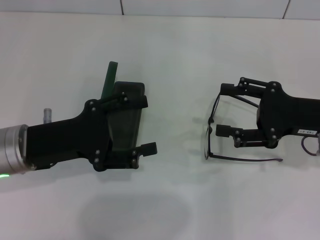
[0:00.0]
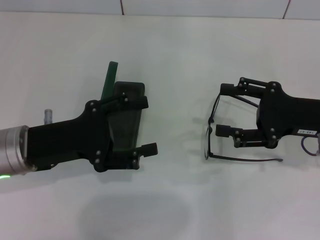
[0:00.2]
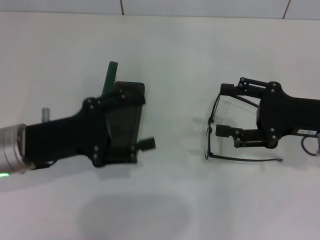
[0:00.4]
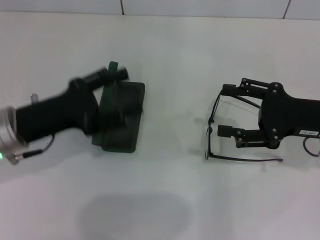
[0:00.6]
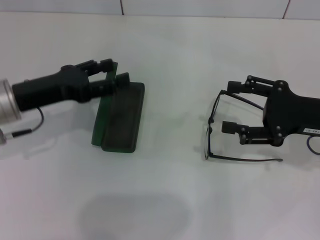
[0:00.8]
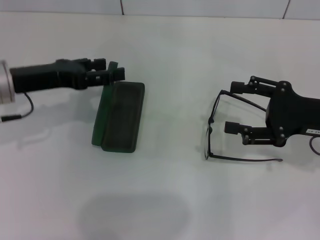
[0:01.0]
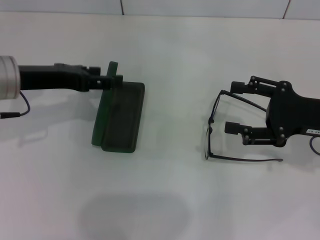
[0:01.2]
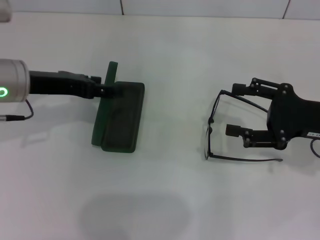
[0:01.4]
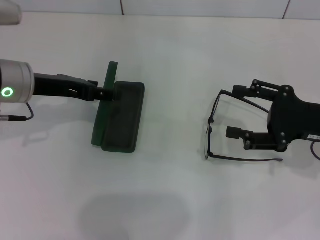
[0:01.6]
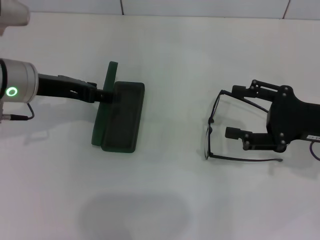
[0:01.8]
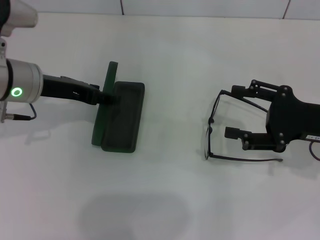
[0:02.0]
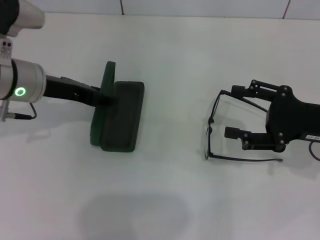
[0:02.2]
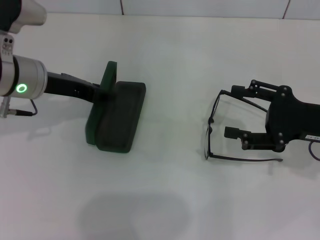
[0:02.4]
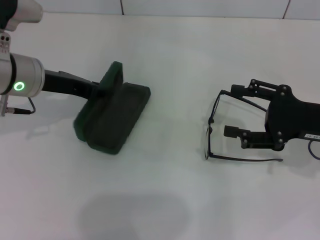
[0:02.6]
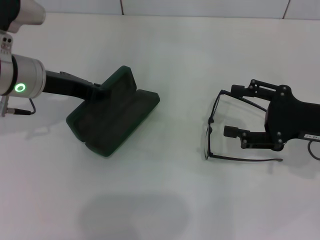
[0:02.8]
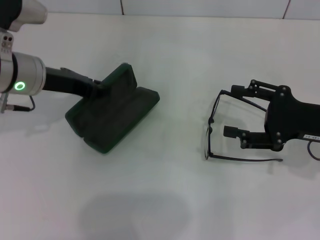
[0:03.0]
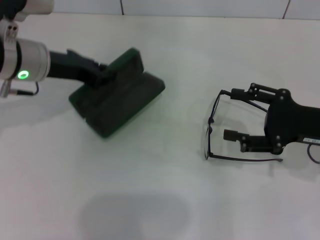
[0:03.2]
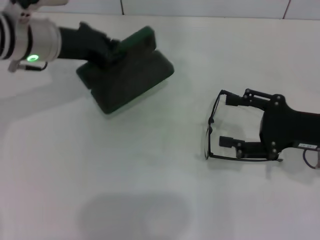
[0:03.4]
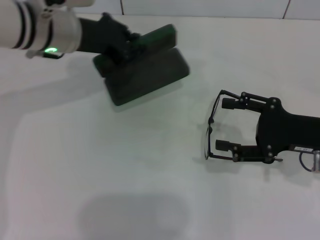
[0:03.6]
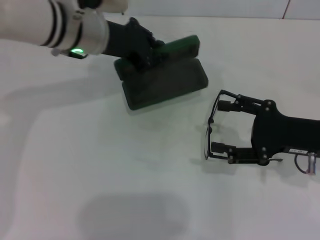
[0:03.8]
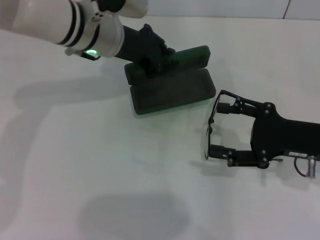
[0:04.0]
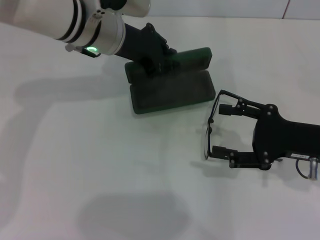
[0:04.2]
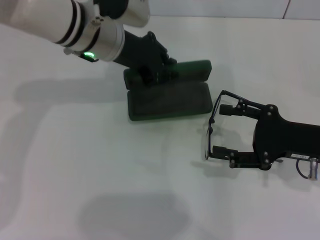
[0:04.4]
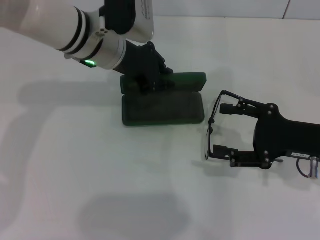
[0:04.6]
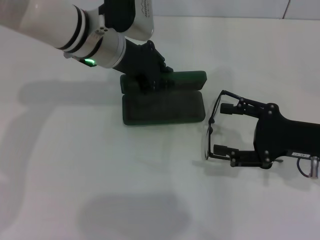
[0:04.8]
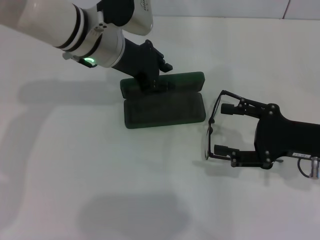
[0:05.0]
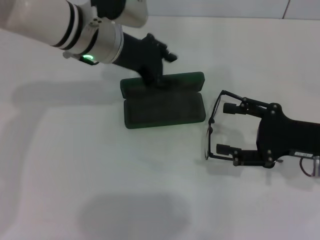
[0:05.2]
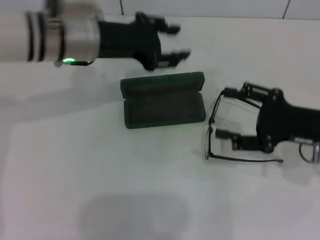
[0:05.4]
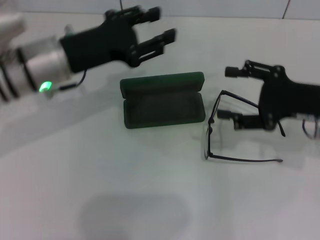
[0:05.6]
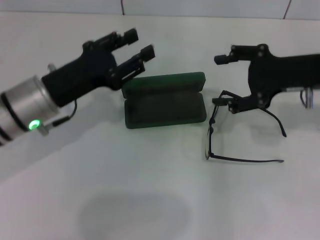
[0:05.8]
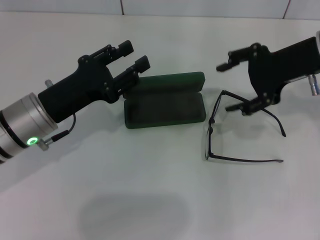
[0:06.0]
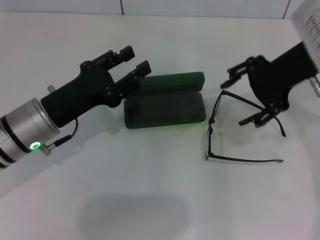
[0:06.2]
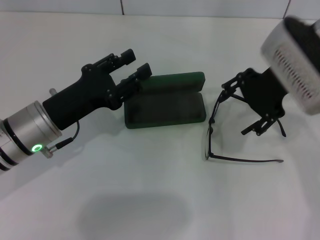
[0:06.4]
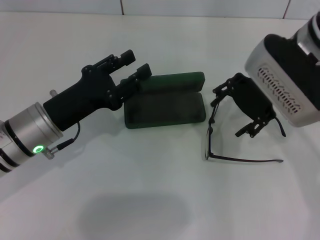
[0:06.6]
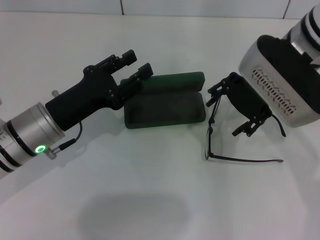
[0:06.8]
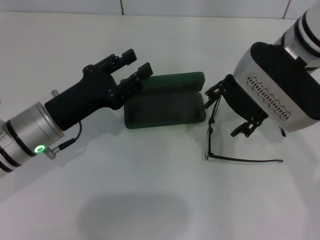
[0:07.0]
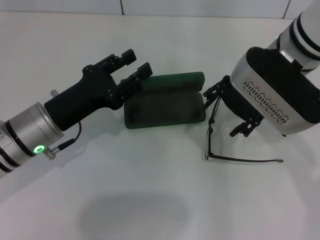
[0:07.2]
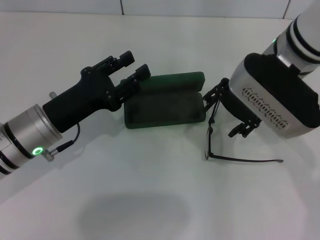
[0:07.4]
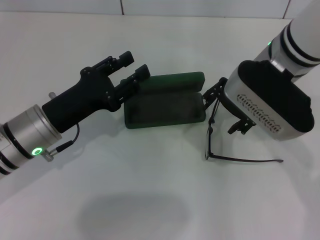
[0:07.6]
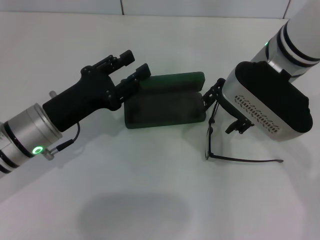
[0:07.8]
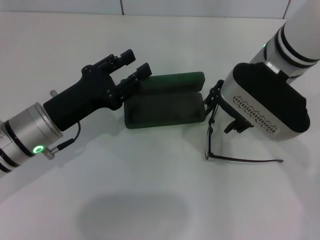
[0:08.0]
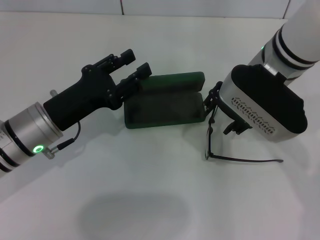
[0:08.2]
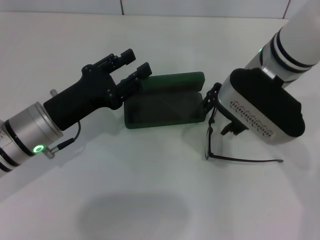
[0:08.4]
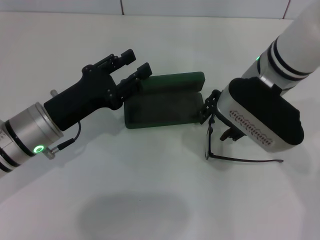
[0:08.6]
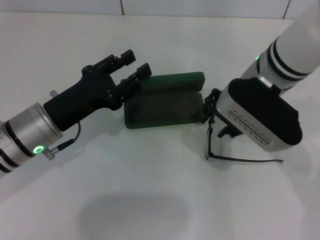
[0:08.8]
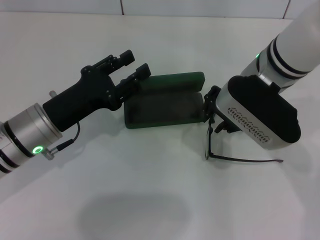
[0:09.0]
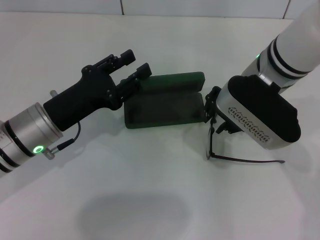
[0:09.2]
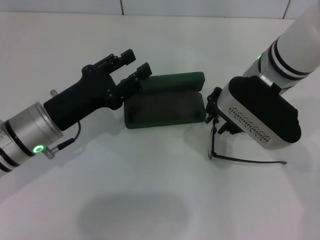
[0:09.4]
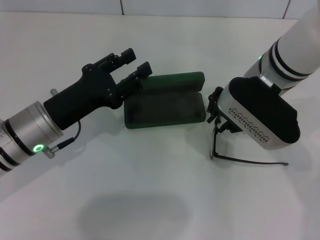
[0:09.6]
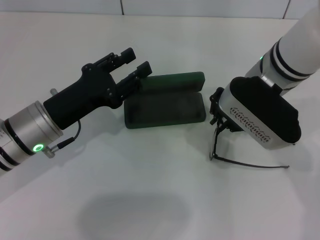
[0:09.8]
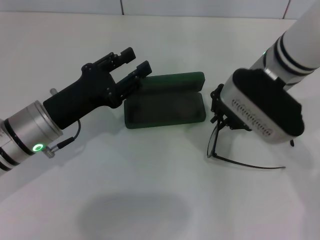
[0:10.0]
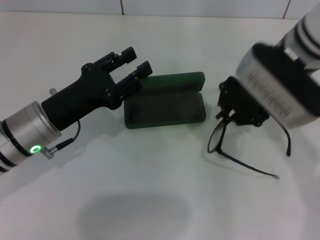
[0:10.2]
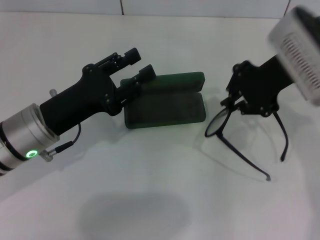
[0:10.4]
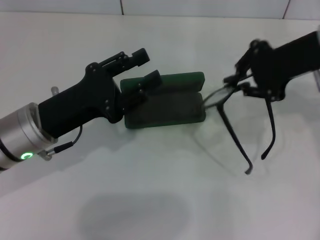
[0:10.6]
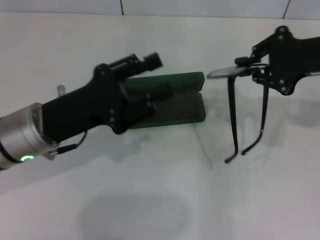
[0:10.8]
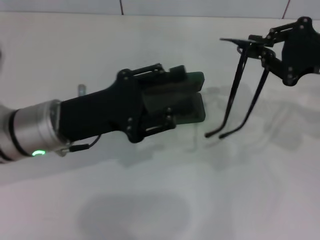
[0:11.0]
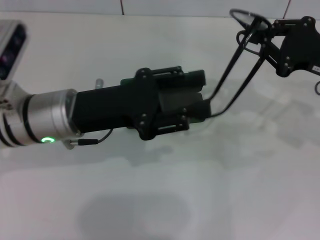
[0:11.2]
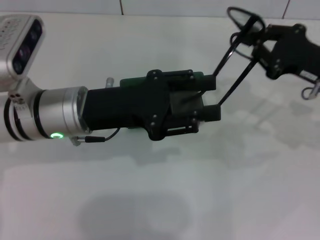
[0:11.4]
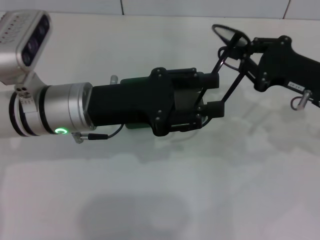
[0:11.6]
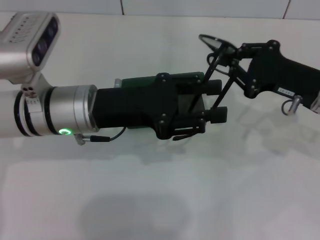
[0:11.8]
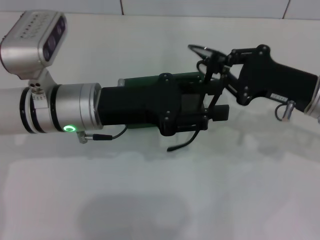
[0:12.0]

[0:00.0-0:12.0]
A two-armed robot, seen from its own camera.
Step, 0:00.0 to 0:02.8: Grab the glasses case with your left hand.
Step, 0:03.0 to 0:04.8: Place the glasses case in the center of the table with your left hand.
Step, 0:05.0 to 0:09.6: Grab the eyeglass frame with your right hand.
0:00.0 to 0:01.6: The left gripper goes about 10 cm forward.
0:01.6 to 0:03.0: The left gripper closes its fingers.
0:03.0 to 0:04.4: The left gripper goes some 10 cm to the right and forward.
0:04.4 to 0:06.0: The right gripper shifts approximately 15 cm upward and forward. The left gripper is displaced backward, to the left and downward by approximately 20 cm, and opens up.
0:06.0 to 0:07.6: The right gripper goes approximately 10 cm to the left.
0:07.6 to 0:09.0: The right gripper closes up.
0:09.0 to 0:10.4: The right gripper heads to the right, covering approximately 5 cm, and closes its fingers.
0:10.4 to 0:12.0: The right gripper shifts roughly 10 cm downward and to the right, while the left gripper moves to the right, about 5 cm.

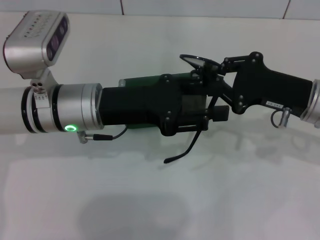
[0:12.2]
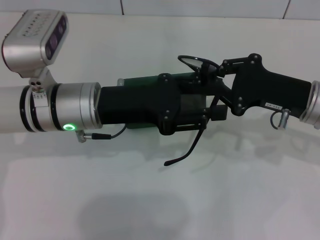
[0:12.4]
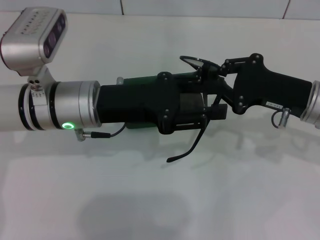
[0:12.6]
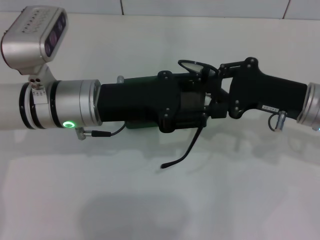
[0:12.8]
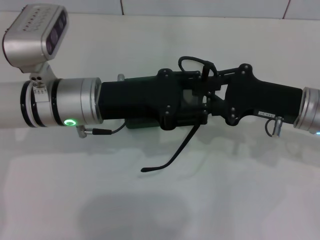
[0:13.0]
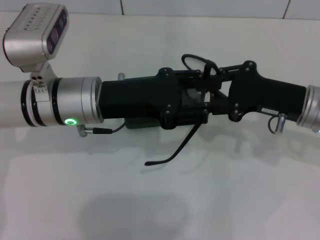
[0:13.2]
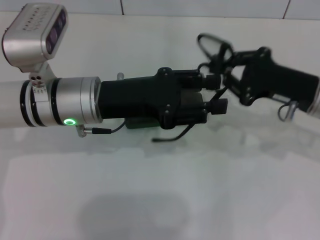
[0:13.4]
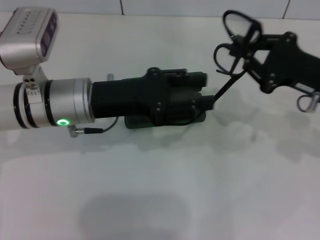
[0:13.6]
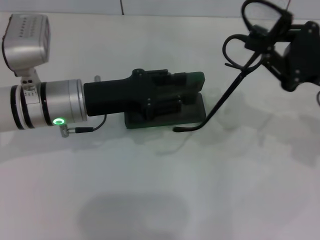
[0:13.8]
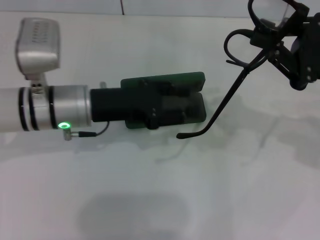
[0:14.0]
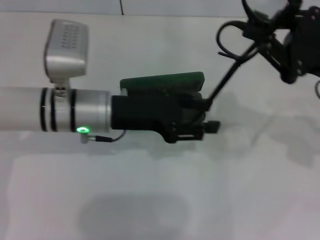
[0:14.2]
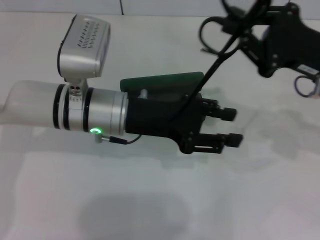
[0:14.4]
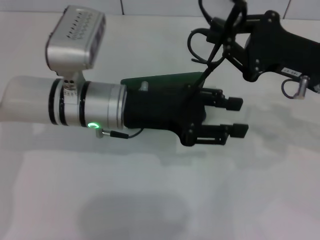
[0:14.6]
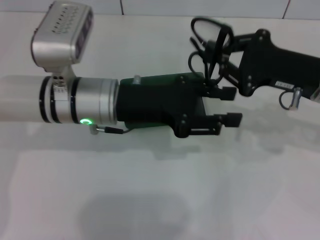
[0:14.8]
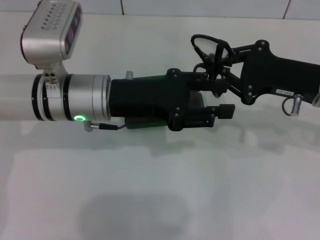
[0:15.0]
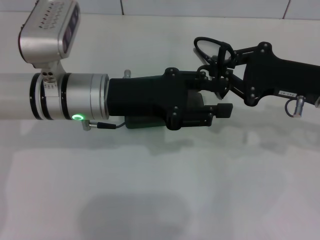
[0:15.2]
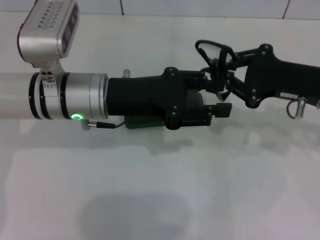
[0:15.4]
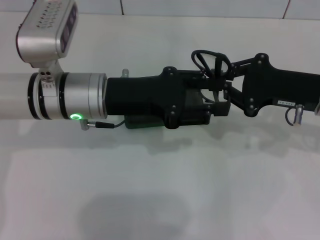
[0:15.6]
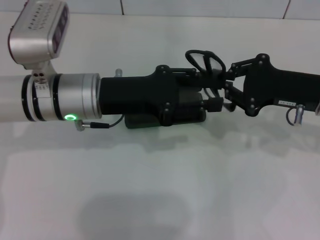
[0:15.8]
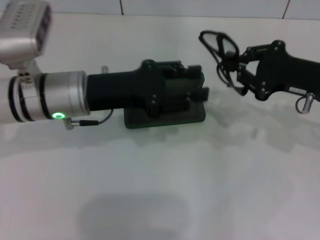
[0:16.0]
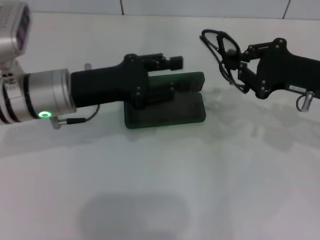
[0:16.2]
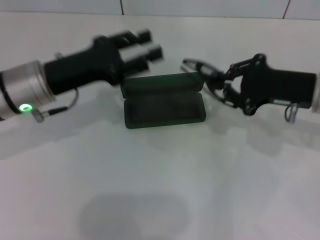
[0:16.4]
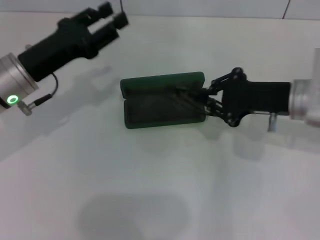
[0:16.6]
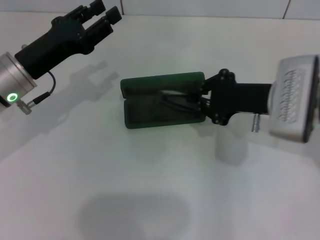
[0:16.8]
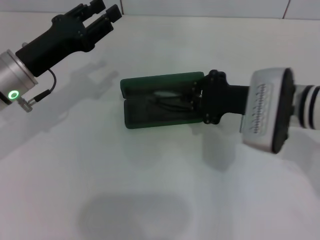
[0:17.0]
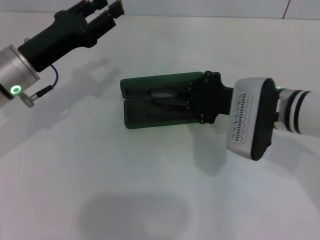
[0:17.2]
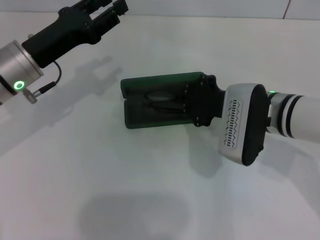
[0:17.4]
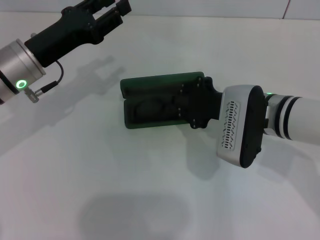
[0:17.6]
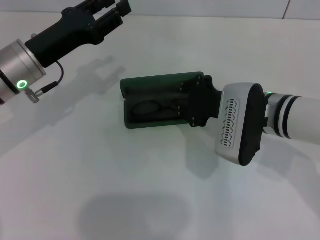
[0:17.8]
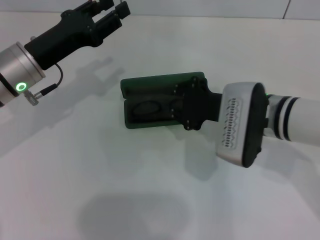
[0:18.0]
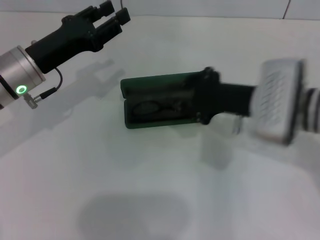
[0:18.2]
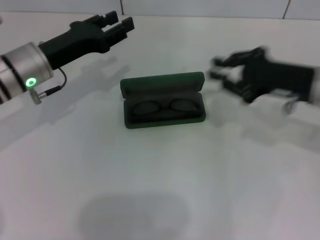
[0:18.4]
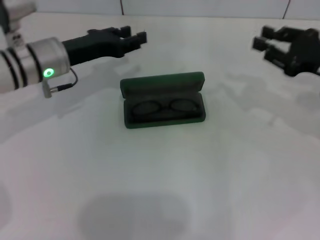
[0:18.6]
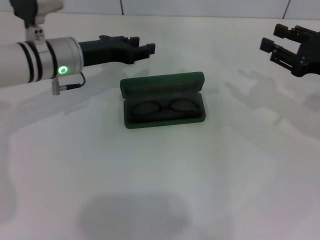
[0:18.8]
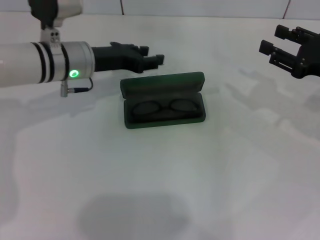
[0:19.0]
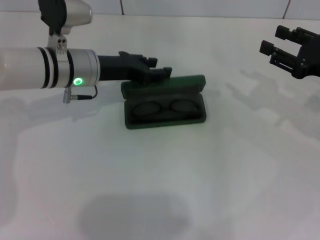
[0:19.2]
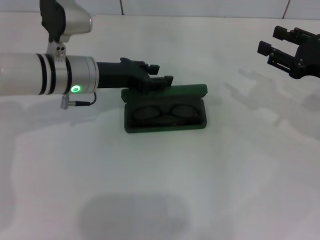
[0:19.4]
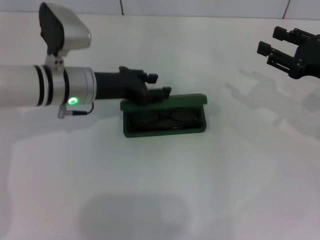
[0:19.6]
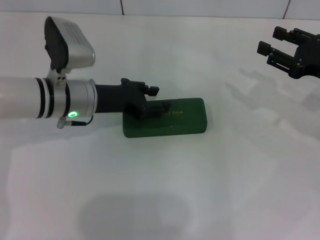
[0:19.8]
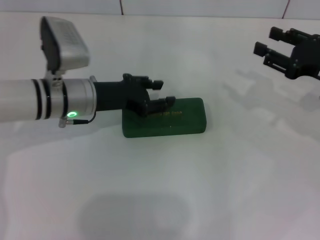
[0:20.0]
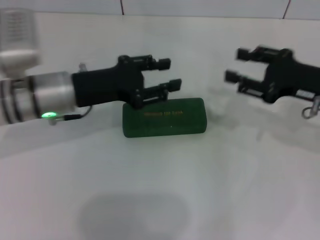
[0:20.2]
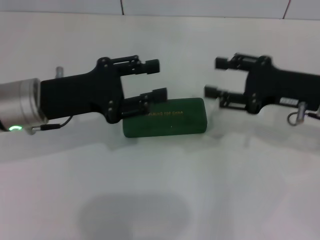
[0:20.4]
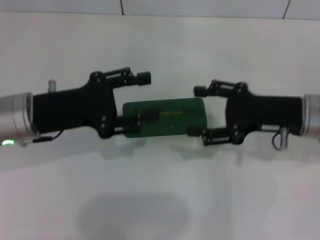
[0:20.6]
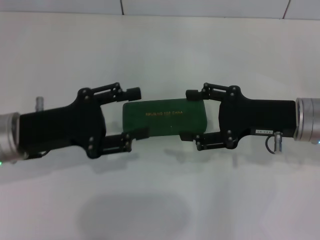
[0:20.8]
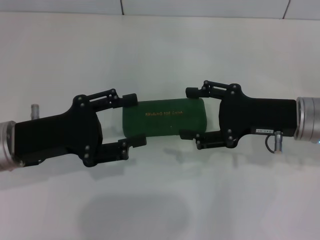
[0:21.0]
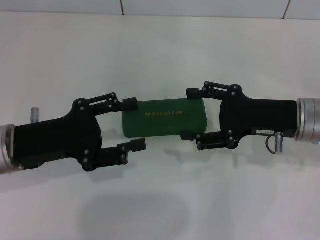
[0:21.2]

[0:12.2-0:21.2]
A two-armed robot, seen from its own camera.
Step, 0:12.2 to 0:15.6: Fold the frame with your left hand.
Step, 0:15.8 to 0:17.6: Put the glasses into the case with your right hand.
Step, 0:17.8 to 0:19.8: Close the glasses case with your left hand.
0:12.2 to 0:13.8: The right gripper shifts by about 5 cm.
0:15.2 to 0:16.6: The left gripper heads to the left, covering approximately 10 cm.
0:18.2 to 0:19.8: The left gripper goes approximately 5 cm to the right; the right gripper is displaced to the right by some 15 cm, and opens.
0:19.8 to 0:21.2: The right gripper travels to the left by roughly 10 cm, and opens; the left gripper heads backward and to the left, covering approximately 15 cm.

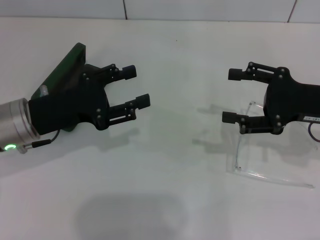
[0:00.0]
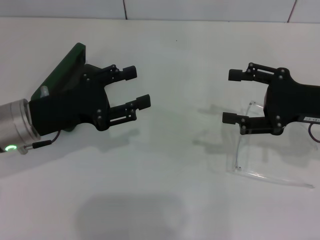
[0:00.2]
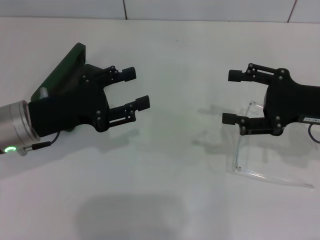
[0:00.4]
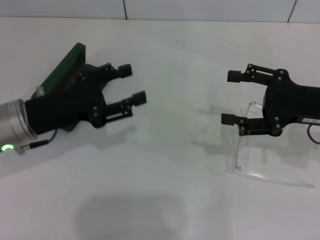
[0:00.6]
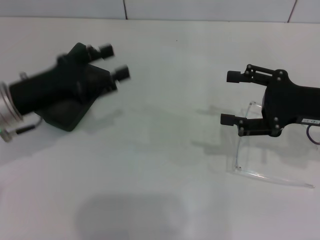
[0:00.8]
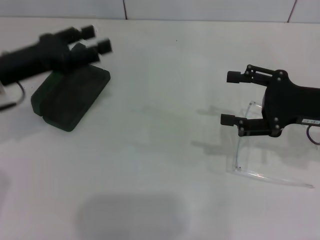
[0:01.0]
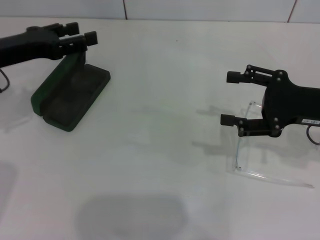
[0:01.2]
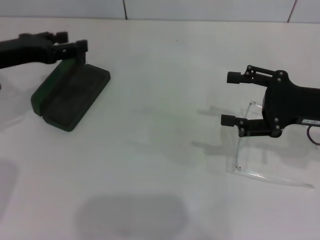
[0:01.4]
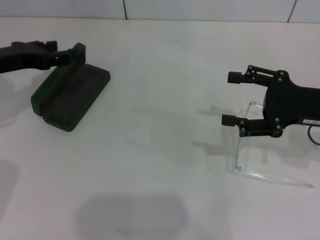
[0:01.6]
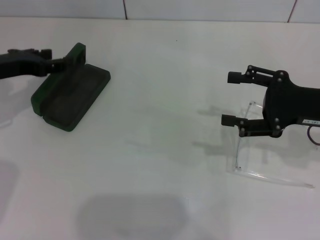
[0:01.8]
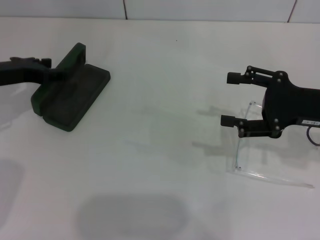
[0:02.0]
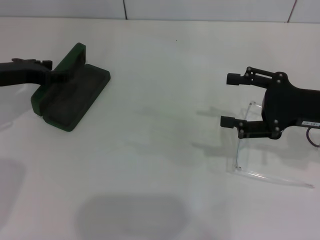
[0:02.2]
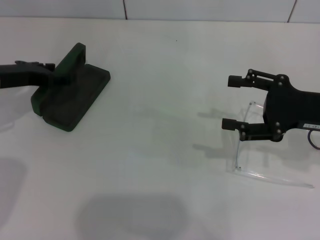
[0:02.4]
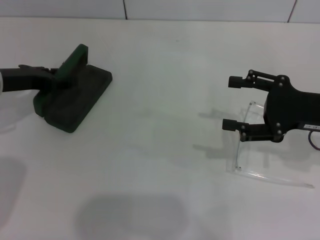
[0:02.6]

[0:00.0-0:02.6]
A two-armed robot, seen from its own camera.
Step, 0:00.0 to 0:02.4: Grab the glasses case with your left hand.
0:00.0 to 0:01.2: The left gripper is displaced upward, forward and to the left by about 10 cm.
